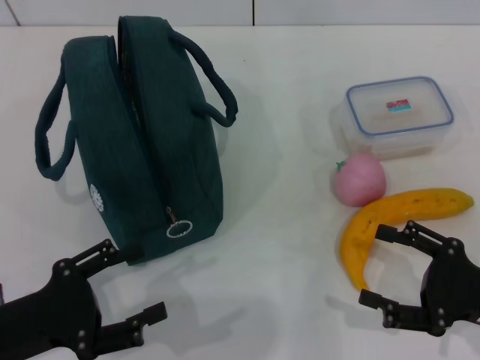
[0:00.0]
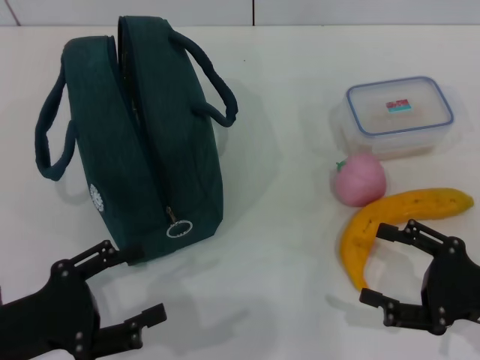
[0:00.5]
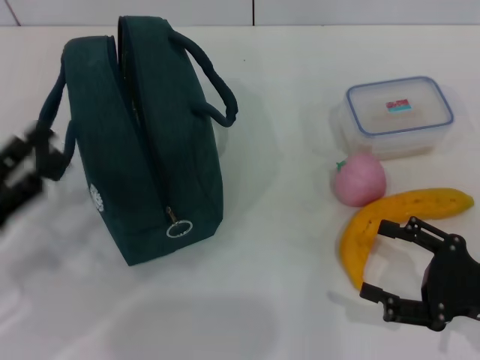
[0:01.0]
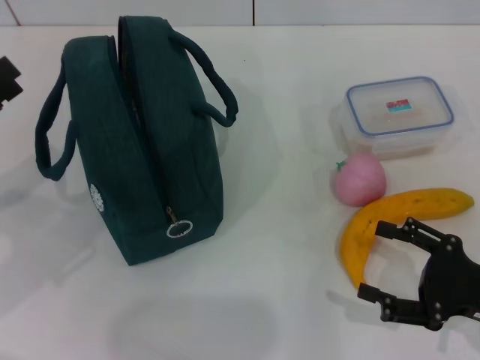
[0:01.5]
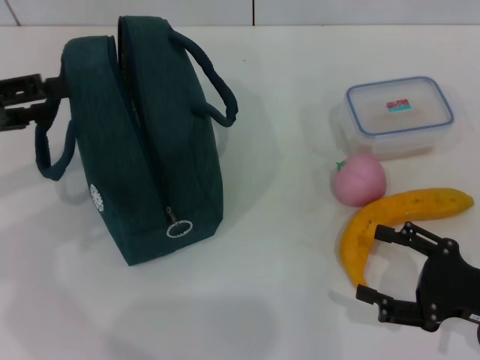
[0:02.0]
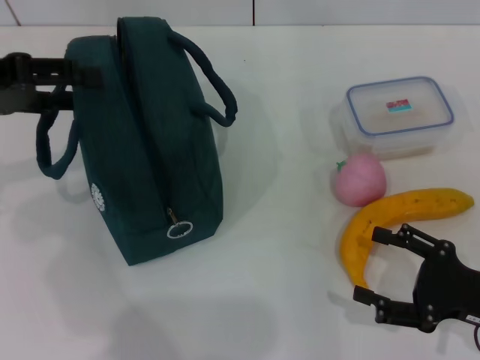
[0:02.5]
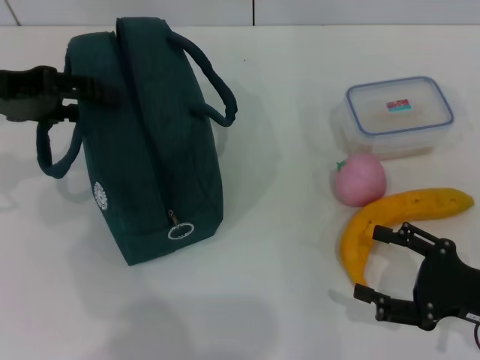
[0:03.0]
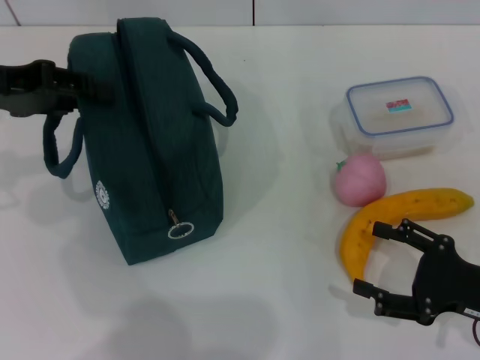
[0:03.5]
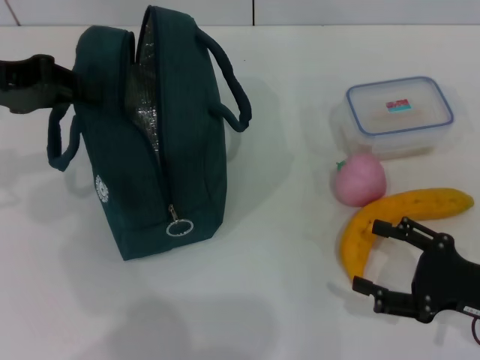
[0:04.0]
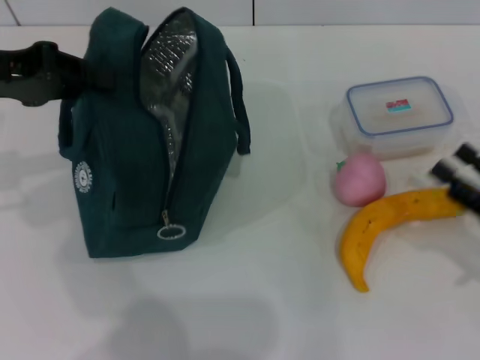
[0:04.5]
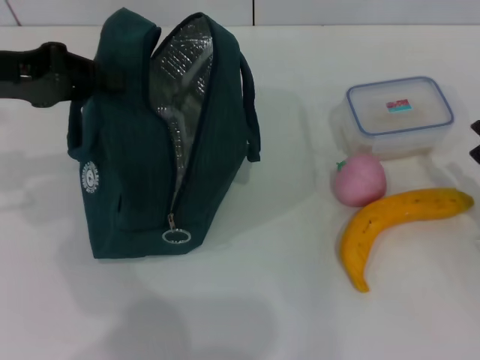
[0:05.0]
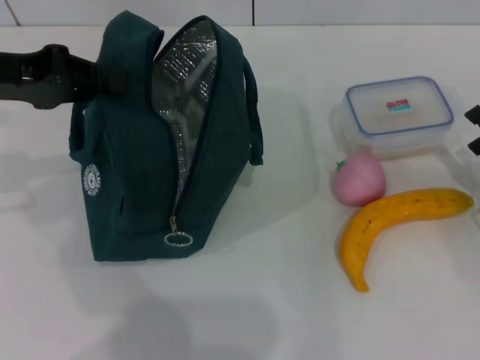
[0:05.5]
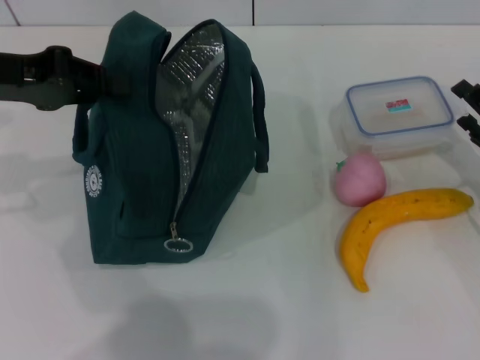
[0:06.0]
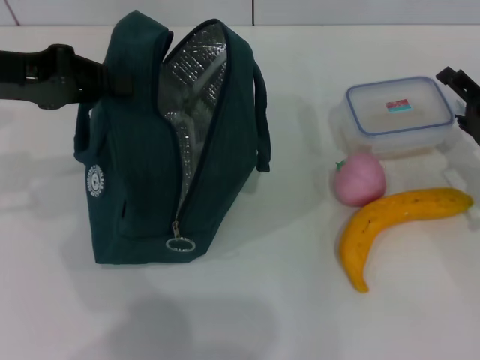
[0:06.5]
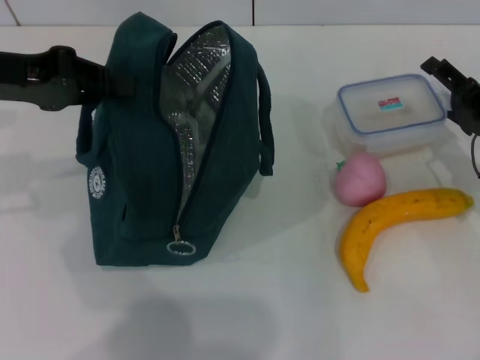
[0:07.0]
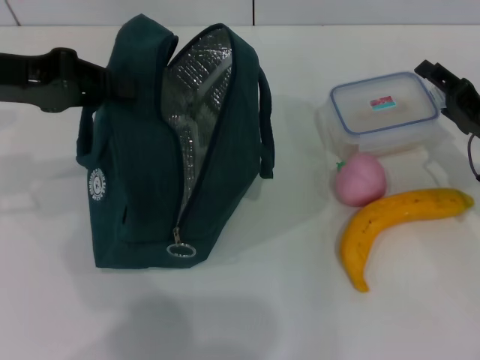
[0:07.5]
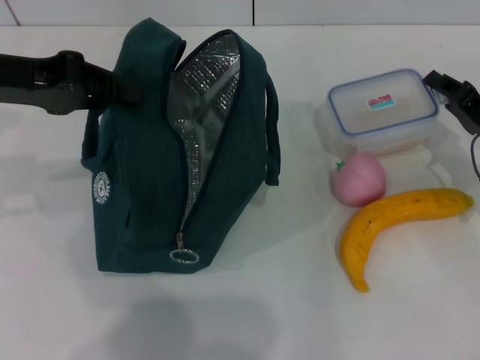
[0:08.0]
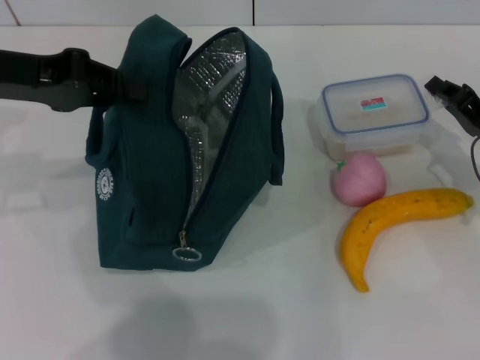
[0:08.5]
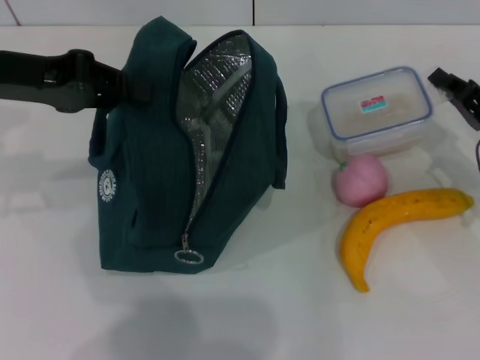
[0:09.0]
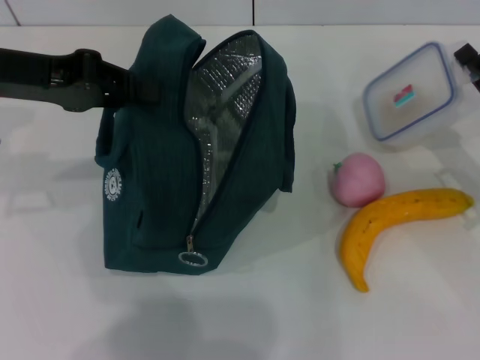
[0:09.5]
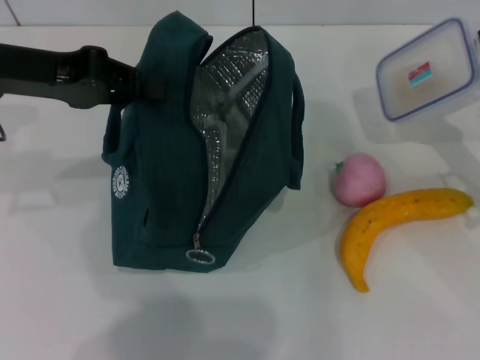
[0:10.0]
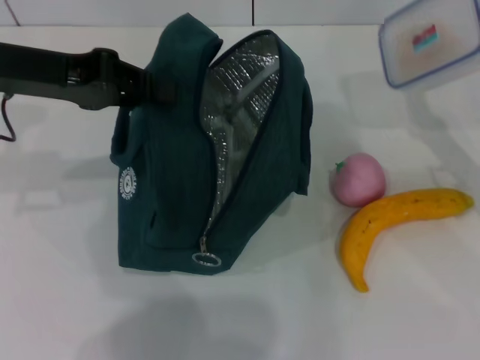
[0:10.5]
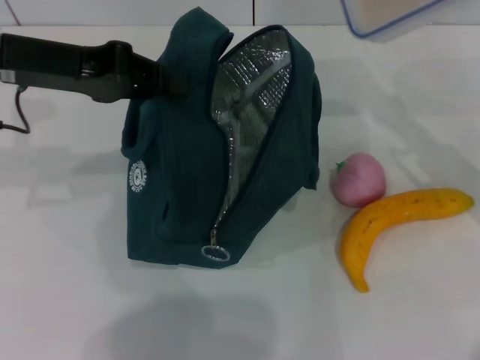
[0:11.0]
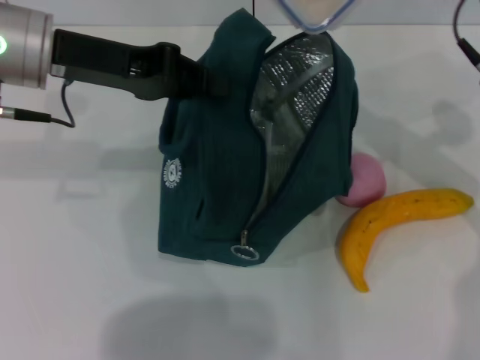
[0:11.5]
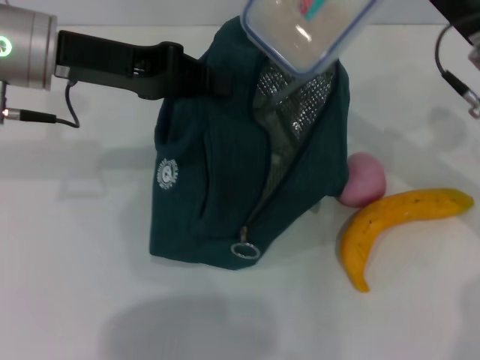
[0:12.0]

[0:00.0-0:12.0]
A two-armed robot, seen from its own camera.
Step, 0:00.0 to 0:04.0: Hold the lunch bag with your left hand.
Step, 0:04.5 to 0:08.0: Pick up the lunch box with your right hand.
0:00.0 to 0:02.0: The left gripper shifts about 20 cm forward, upward and to the left.
0:02.0 to 0:04.0: The left gripper moves approximately 5 cm, and closes up.
0:04.0 to 0:06.0: The right gripper is displaced forward by some 10 cm.
0:06.0 to 0:08.0: The grippers stay close to where they were, moving slightly.
0:08.0 to 0:10.0: The right gripper closes its fingers.
0:10.0 to 0:12.0: The left gripper shifts roughly 5 cm to the right; the right gripper moves to the left, upward and forward, approximately 15 cm.

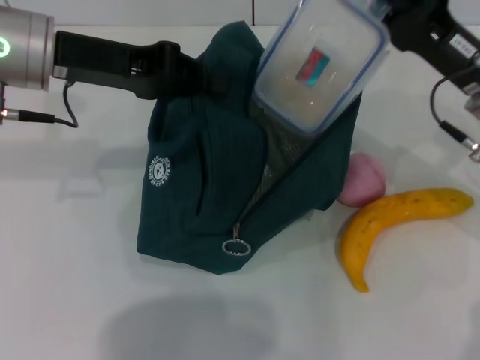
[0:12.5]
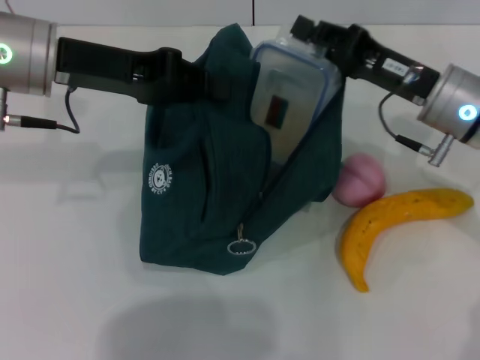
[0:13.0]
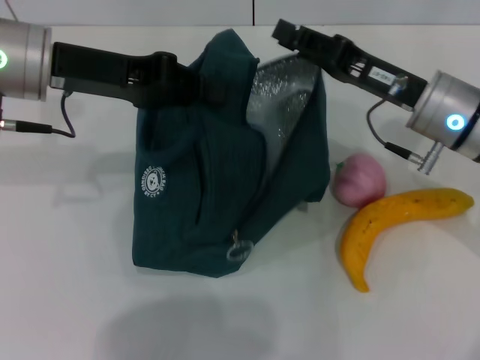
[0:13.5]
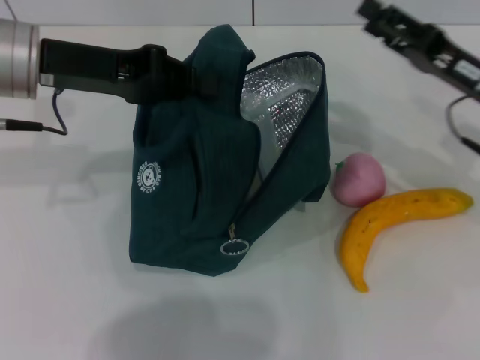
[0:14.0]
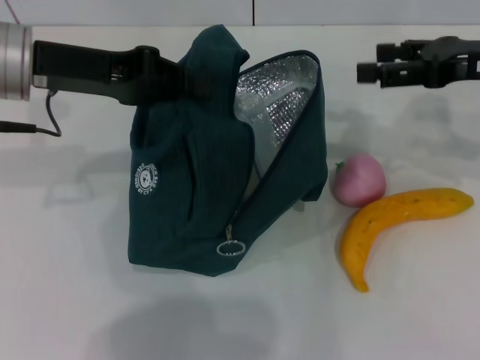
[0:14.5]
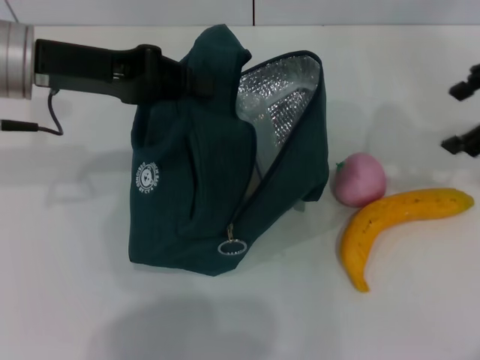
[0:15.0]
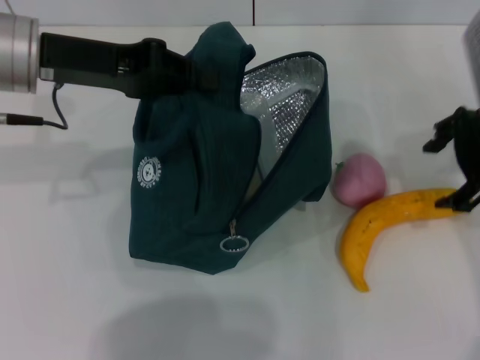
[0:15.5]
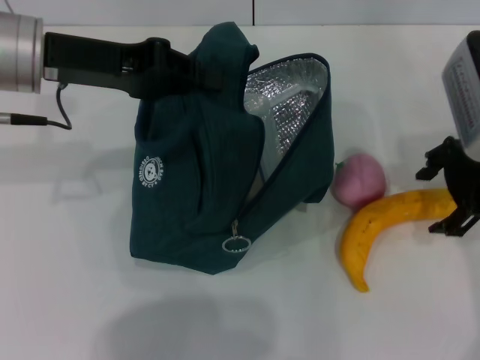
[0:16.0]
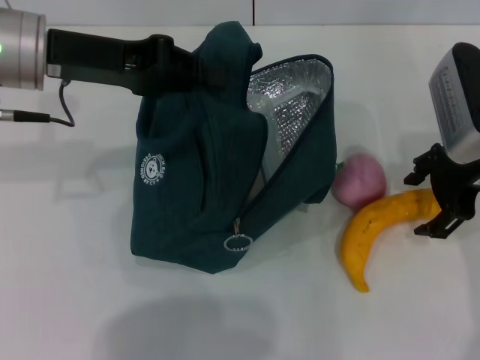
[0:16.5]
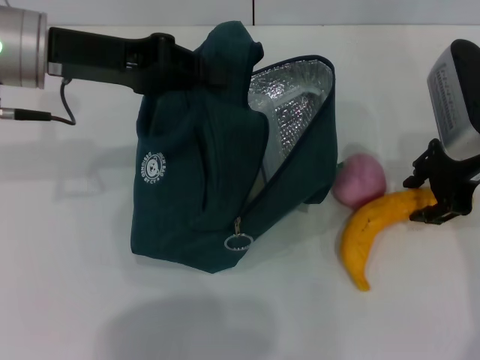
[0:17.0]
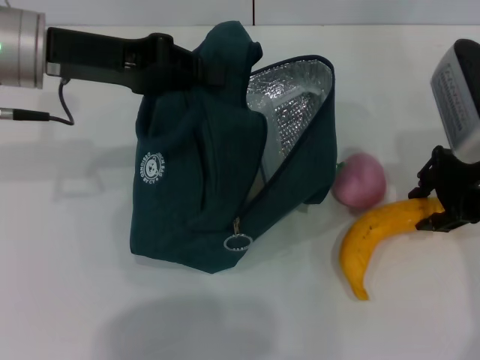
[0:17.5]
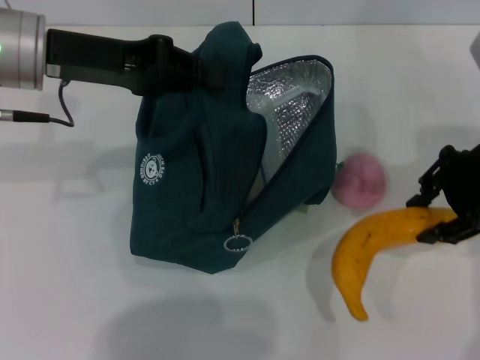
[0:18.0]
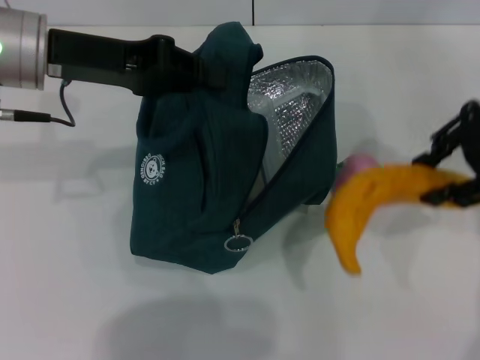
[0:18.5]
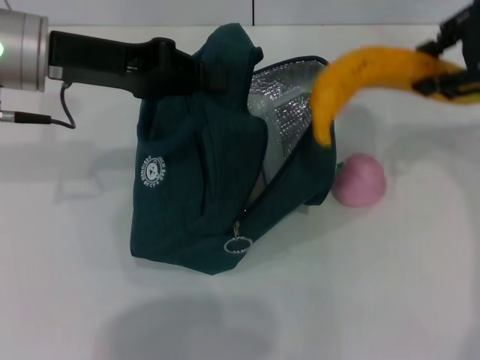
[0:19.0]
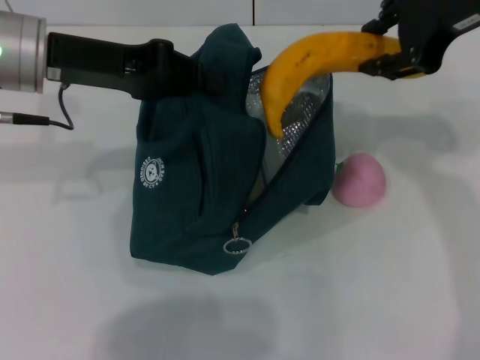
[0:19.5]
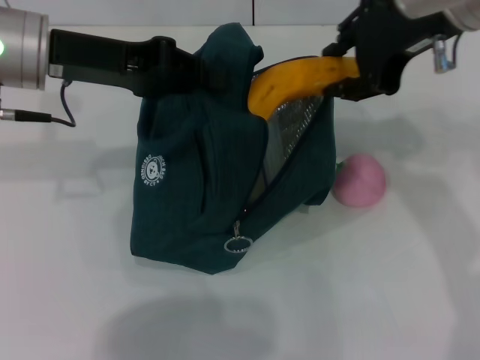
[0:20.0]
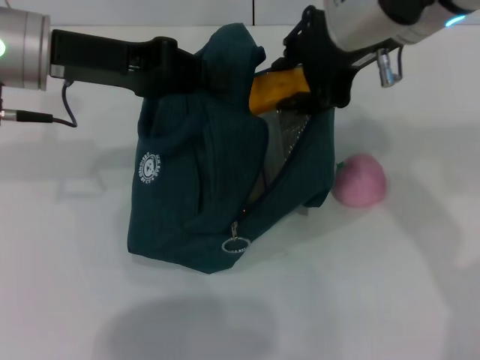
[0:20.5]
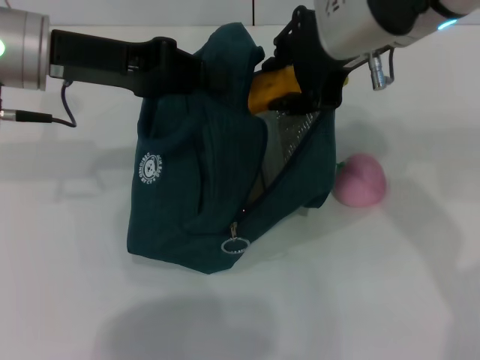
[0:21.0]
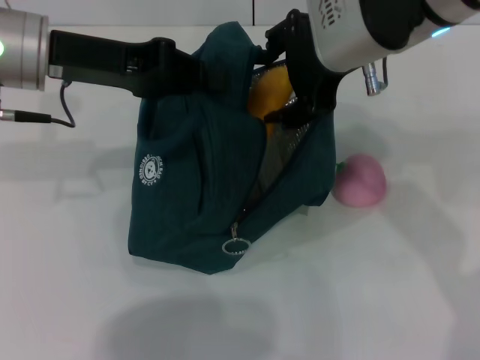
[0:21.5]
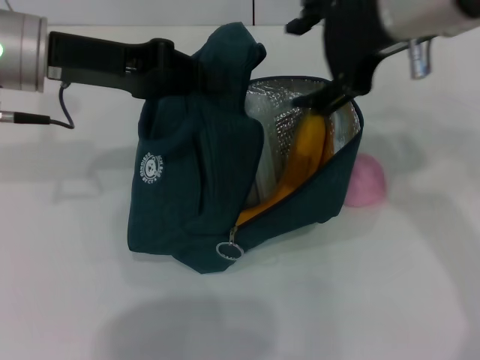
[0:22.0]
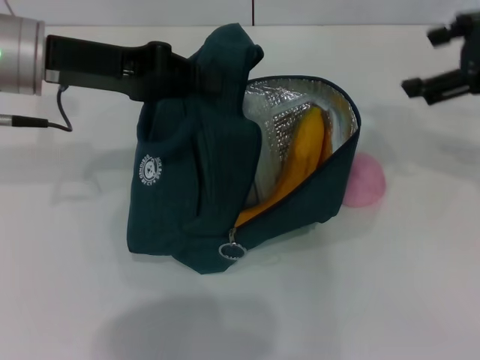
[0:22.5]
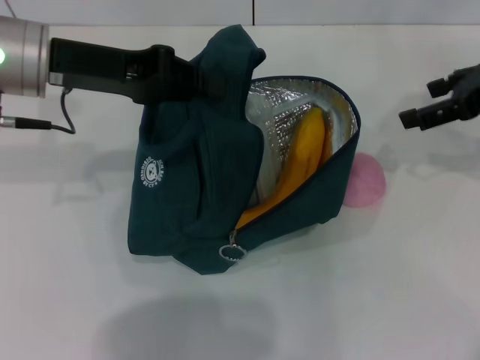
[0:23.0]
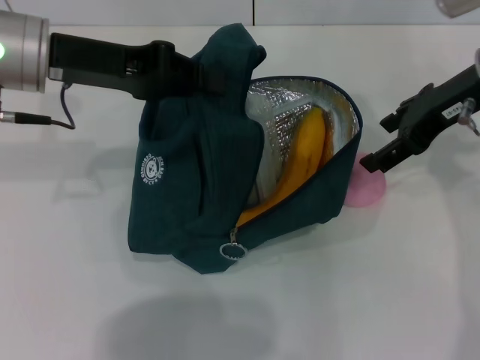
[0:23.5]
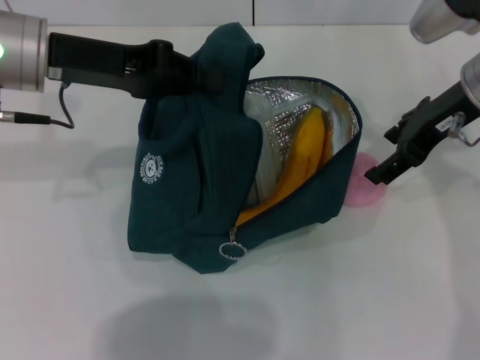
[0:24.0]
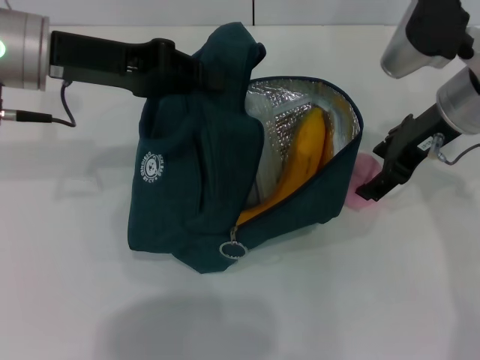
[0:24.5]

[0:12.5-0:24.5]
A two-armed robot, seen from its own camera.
Step, 0:14.0 to 0:17.0: Take the banana with your right hand.
Step, 0:17.5 to 0:21.5: Put the banana into the lunch bag with your right hand.
0:12.5 to 0:14.5: The right gripper moves upward, approximately 5 cm, and opens up.
0:14.5 to 0:16.5: The right gripper moves to the left, some 5 cm, and moves roughly 5 cm upward and comes back.
0:16.5 to 0:18.5: The right gripper travels upward by some 10 cm, and closes its fingers.
0:18.5 to 0:20.5: The right gripper travels to the left by some 15 cm.
0:20.5 to 0:22.5: The right gripper moves to the right, approximately 15 cm, and opens.
0:22.5 to 0:24.5: The right gripper goes roughly 10 cm downward and to the left.

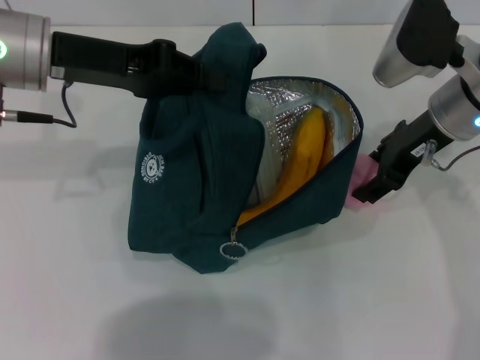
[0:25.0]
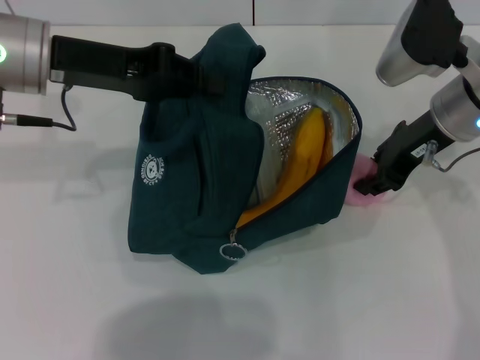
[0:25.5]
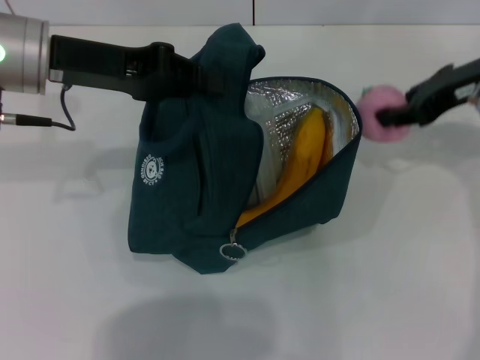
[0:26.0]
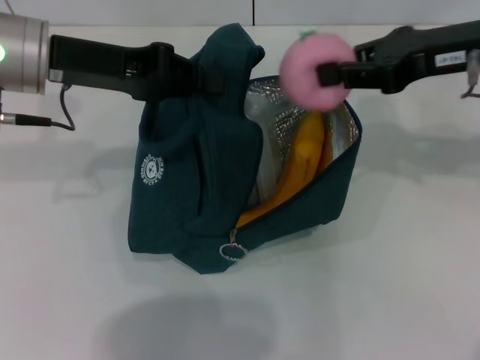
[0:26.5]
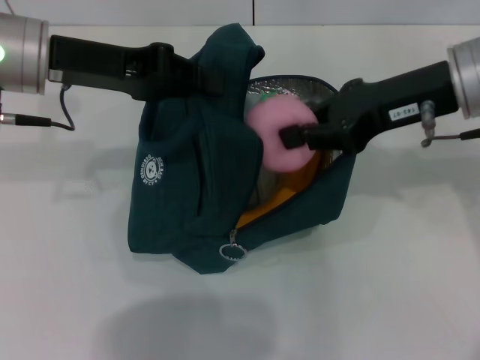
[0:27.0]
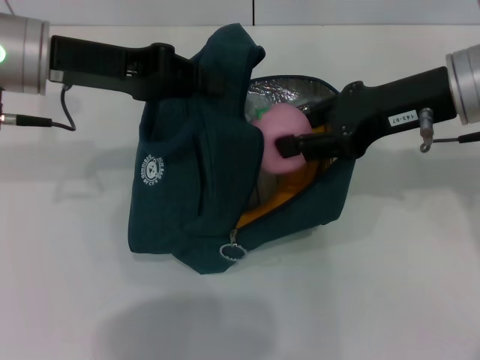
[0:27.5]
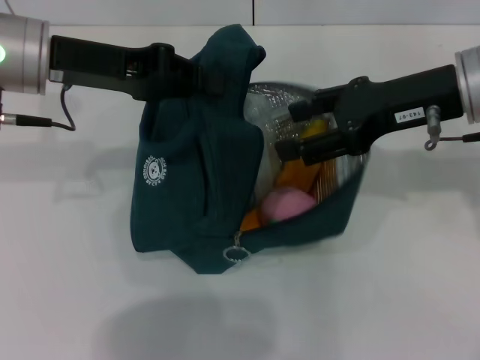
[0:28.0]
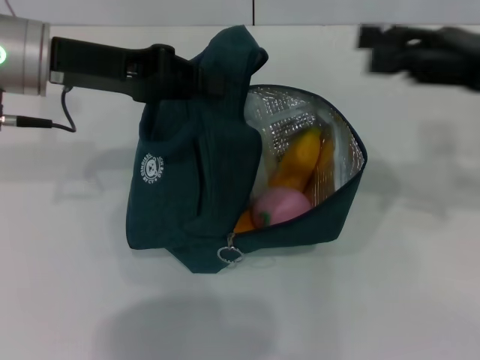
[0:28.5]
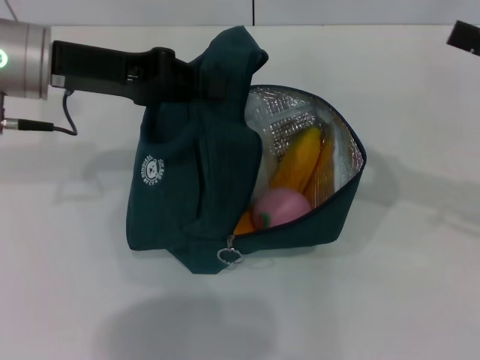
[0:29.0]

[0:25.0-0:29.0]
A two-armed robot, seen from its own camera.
0:25.0 to 0:27.0: The right gripper heads upward, covering some 5 cm, and closes.
0:27.0 to 0:29.0: The right gripper moves to the right, some 15 cm, and opens up.
